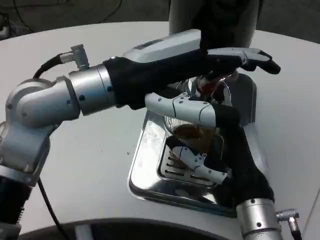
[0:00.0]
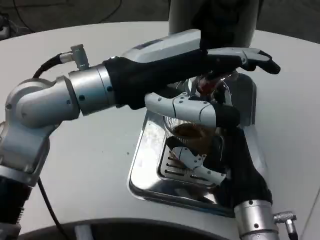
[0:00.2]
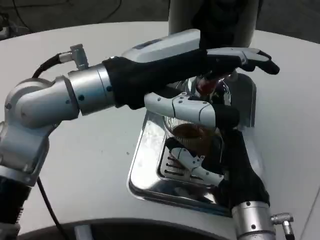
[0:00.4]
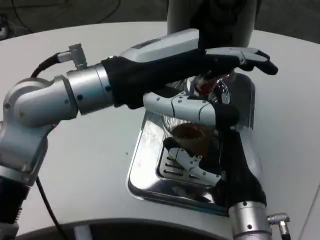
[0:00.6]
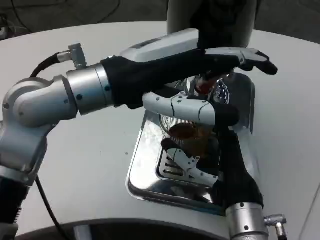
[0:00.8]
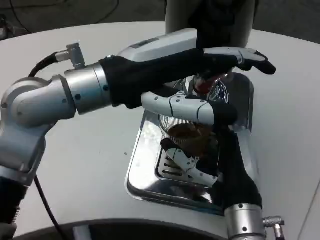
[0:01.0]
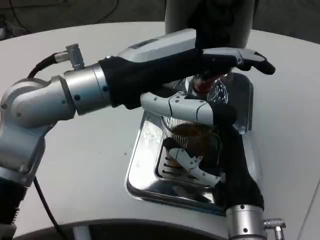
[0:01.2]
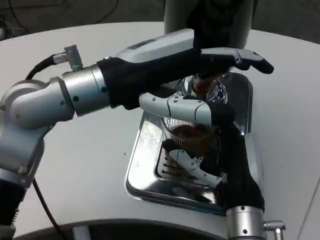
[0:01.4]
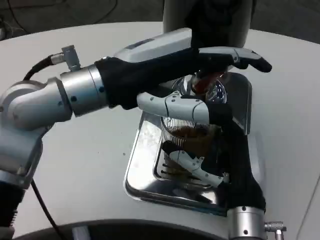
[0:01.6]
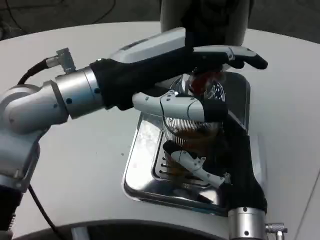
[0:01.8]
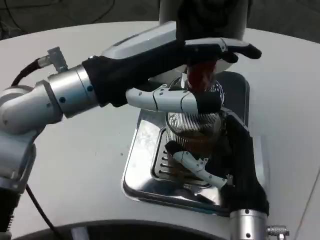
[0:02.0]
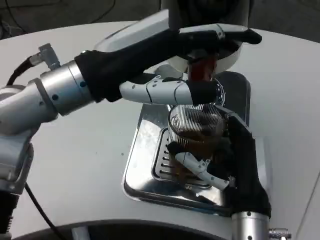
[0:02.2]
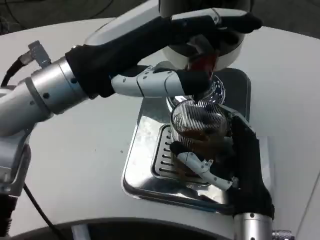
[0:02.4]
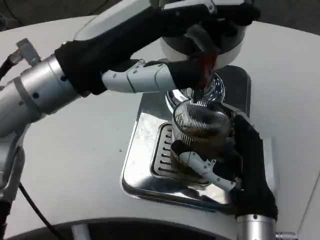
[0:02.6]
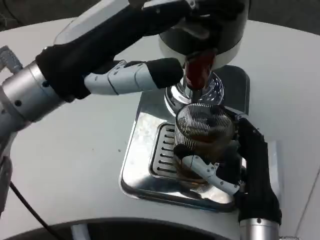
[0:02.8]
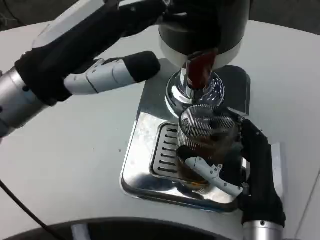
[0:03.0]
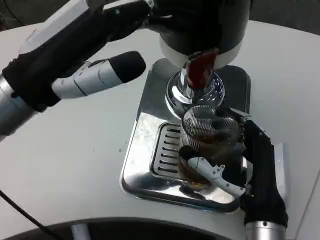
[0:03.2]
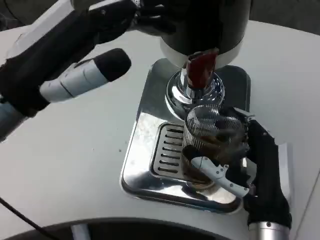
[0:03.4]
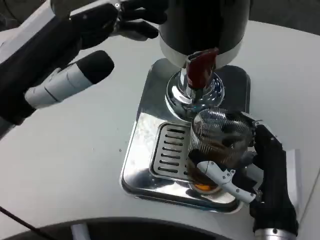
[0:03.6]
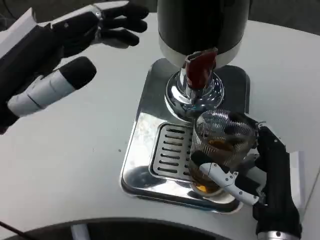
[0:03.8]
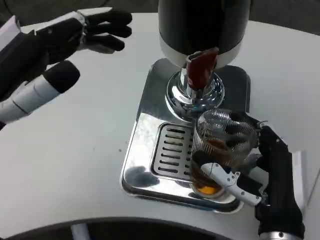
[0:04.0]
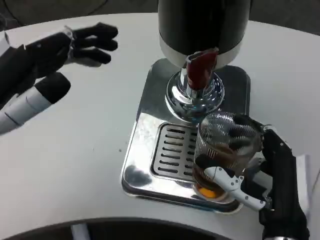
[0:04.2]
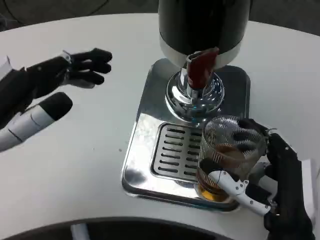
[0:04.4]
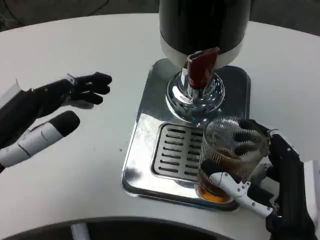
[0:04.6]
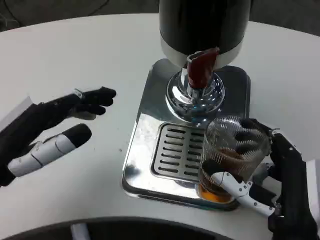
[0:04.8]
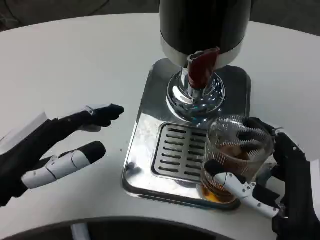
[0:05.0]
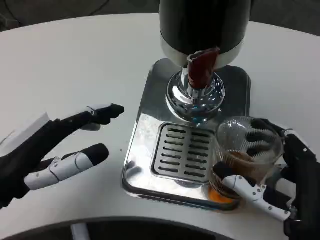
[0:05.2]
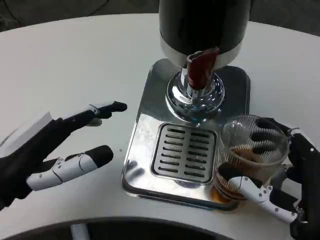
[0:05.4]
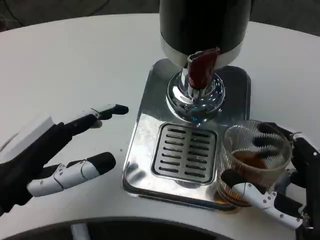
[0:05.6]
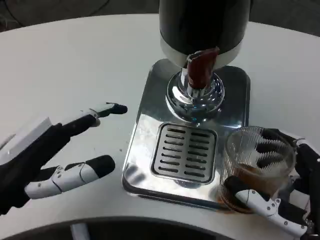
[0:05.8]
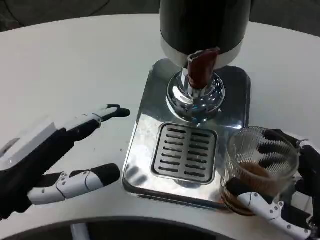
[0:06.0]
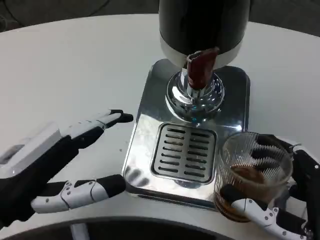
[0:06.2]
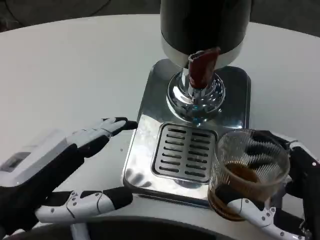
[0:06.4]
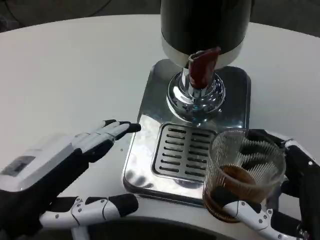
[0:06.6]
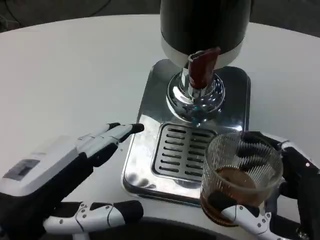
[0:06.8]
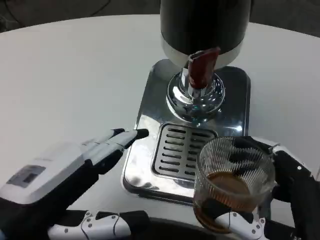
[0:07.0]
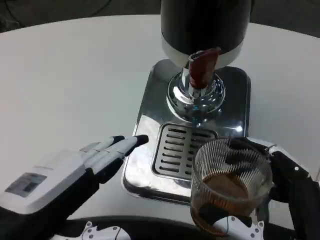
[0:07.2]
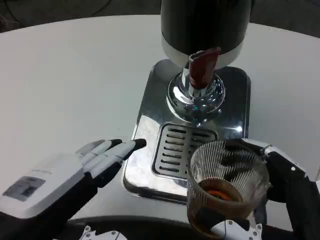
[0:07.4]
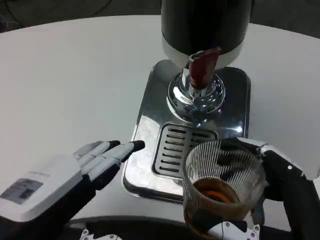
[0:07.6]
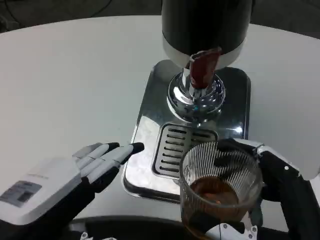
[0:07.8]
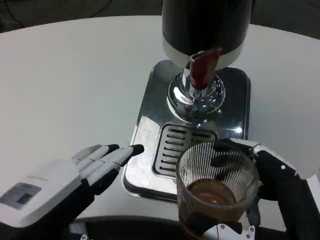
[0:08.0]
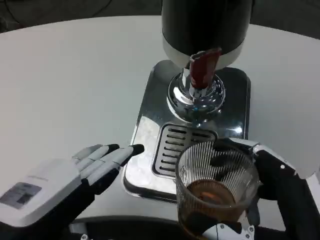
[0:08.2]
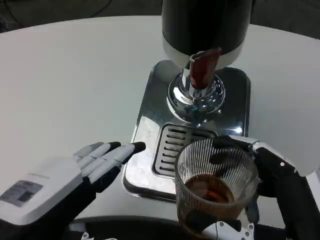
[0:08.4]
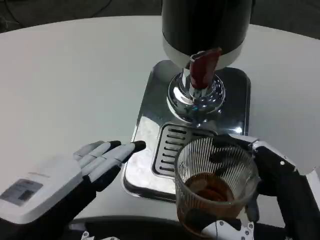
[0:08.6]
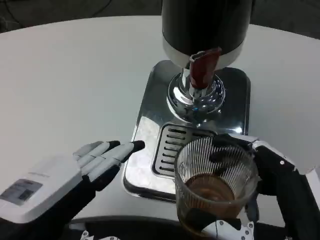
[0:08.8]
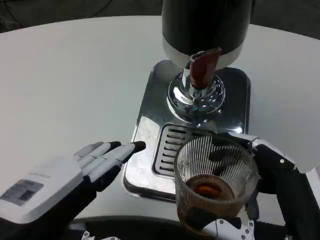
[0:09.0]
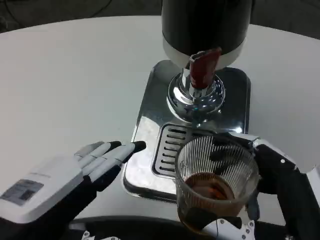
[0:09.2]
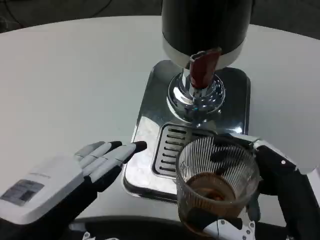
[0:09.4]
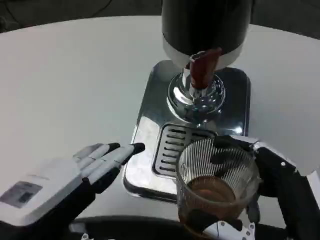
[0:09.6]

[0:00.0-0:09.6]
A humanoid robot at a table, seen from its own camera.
Task of the whole recording: Grasp the cup under the faucet to collect the drink, then remove the cup.
0:01.6 to 0:03.2: The left hand moves to the left, approximately 5 cm.
0:03.2 to 0:04.8: The left hand heads downward and to the left, covering roughly 10 cm.
0:04.8 to 0:06.4: The right hand ends up approximately 5 cm from where it was.
0:08.0 to 0:09.6: The two hands keep their place.
